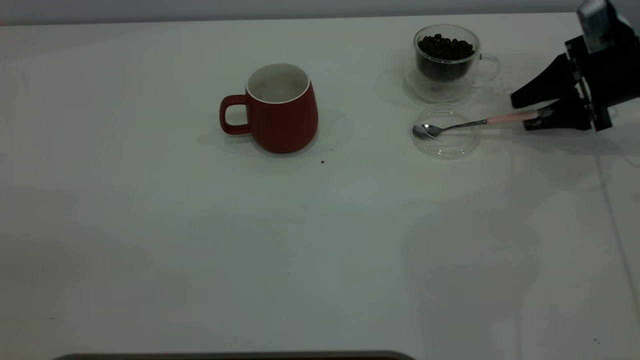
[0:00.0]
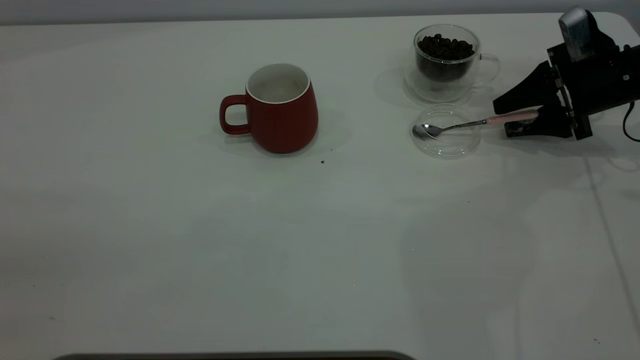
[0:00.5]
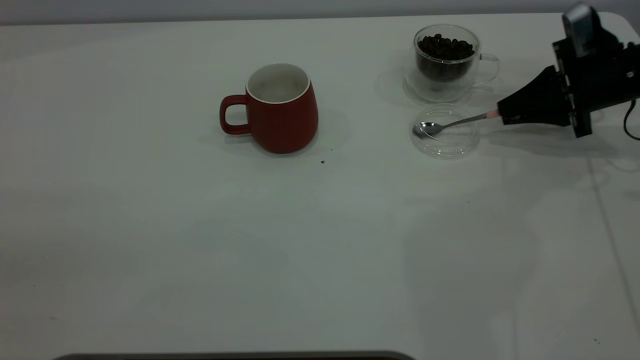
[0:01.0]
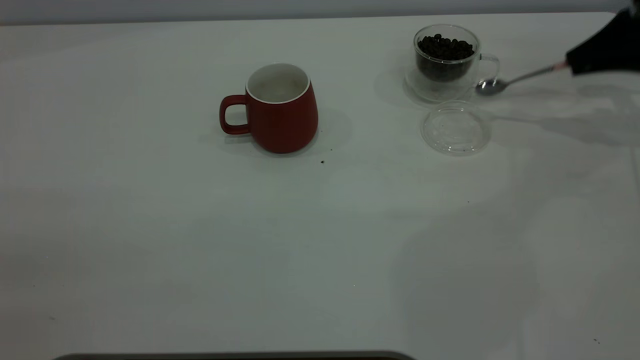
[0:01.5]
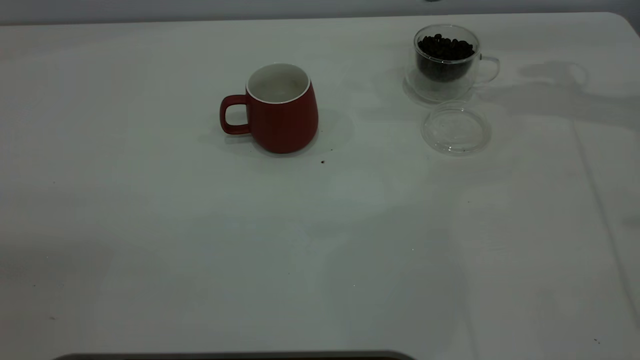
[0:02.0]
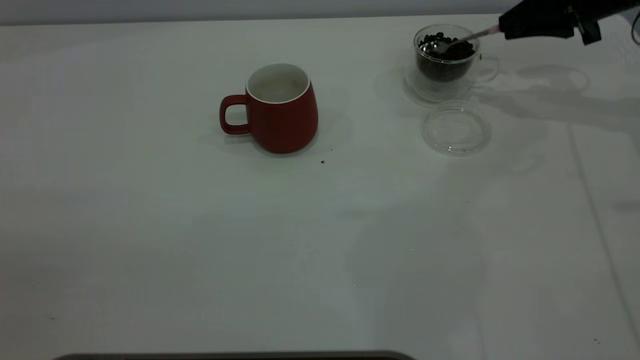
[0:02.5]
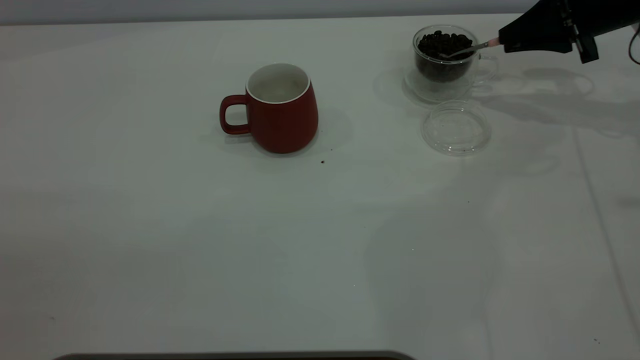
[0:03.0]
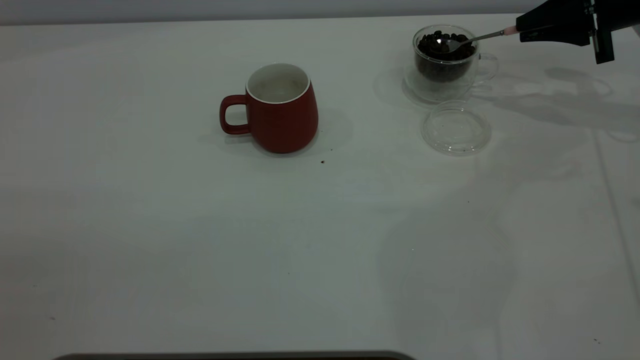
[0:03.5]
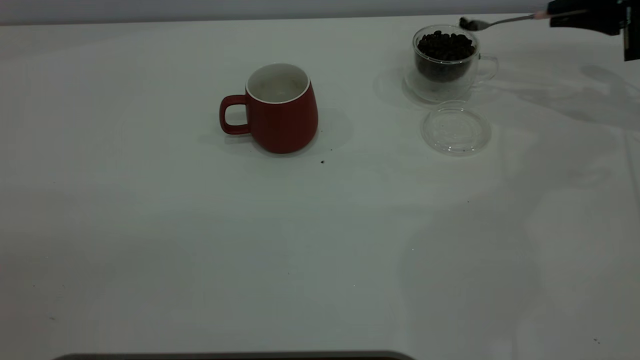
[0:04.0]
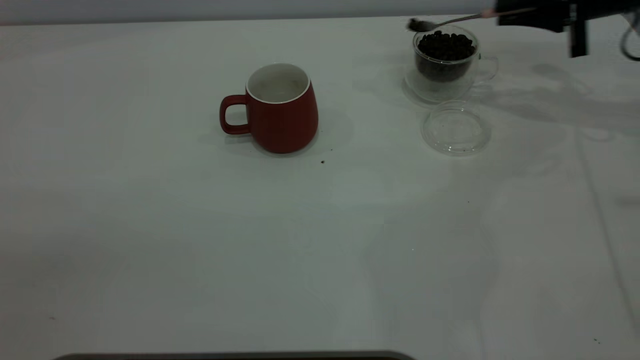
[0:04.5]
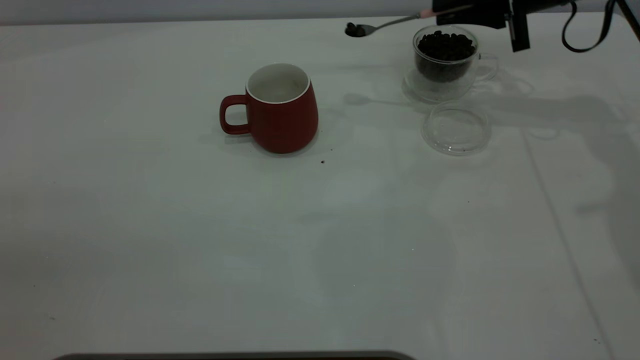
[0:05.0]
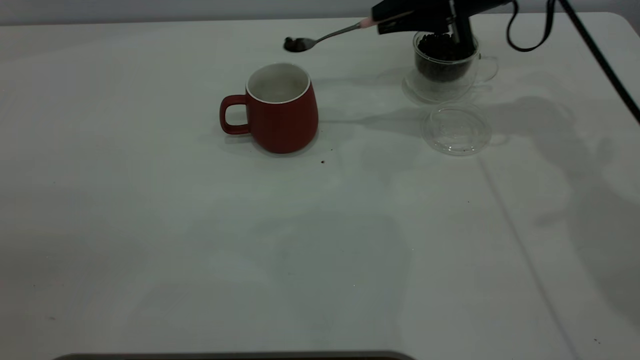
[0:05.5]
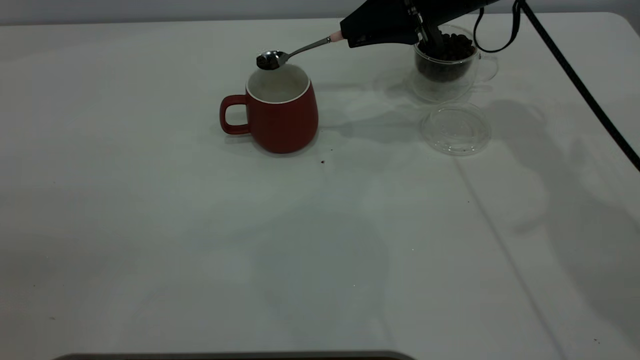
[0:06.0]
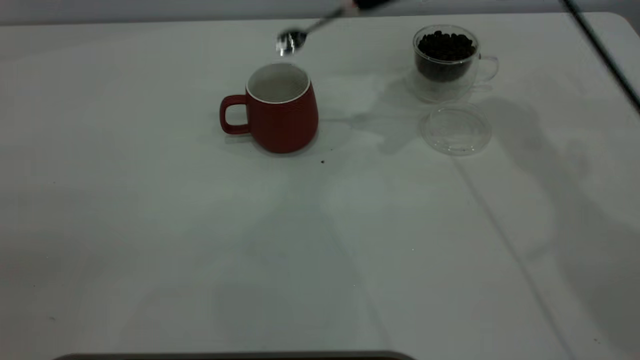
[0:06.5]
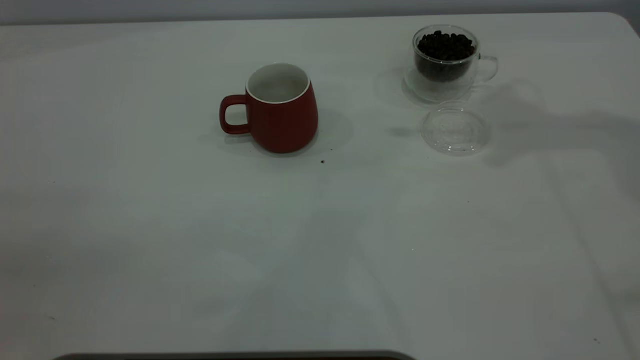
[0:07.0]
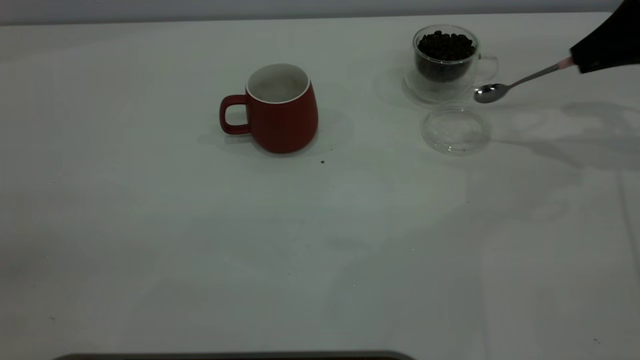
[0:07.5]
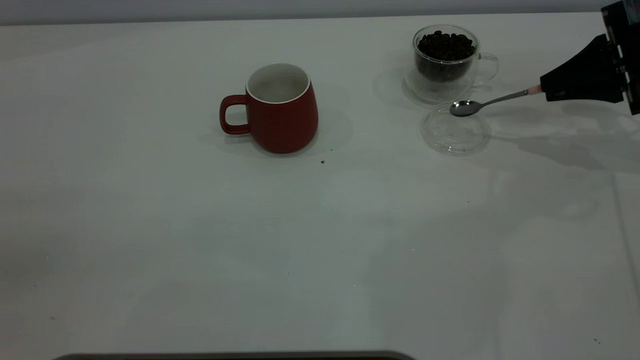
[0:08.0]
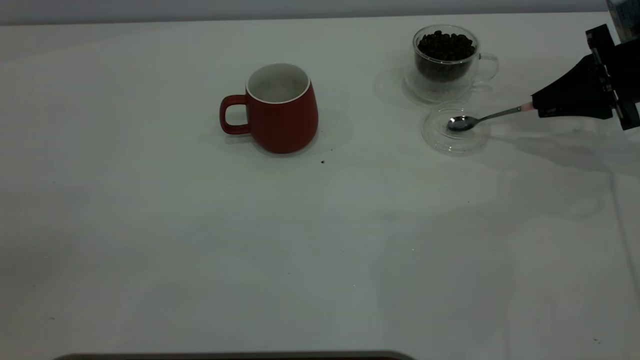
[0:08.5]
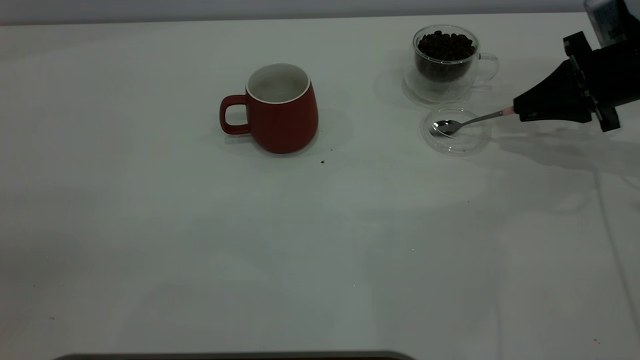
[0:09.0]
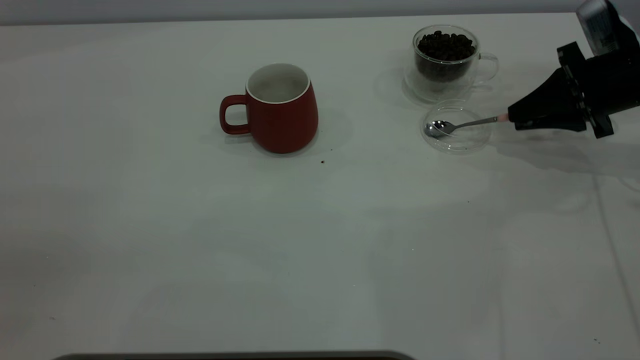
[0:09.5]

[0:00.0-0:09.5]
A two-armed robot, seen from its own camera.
Task of the whole recording: the left gripper place the red cup in the center of the table, the right gripper take the pink spoon from the cup lid and scoop out the coffee beans from the coffee cup and put them into the red cup, the right gripper put the spoon back into the cup lid.
Step, 0:01.5 to 0:06.0: Scoop a spoonful of beans into the cup.
0:00.0 to 0:02.0: The right gripper goes roughly 15 cm upward, and closes up.
0:02.0 to 0:04.0: The right gripper heads to the right and downward, covering some 10 cm.
0:04.0 to 0:05.5: The right gripper moves to the left, some 20 cm.
0:05.5 to 0:07.5: The right gripper travels to the right by some 20 cm.
0:07.5 to 0:09.5: The right gripper shifts approximately 10 cm downward.

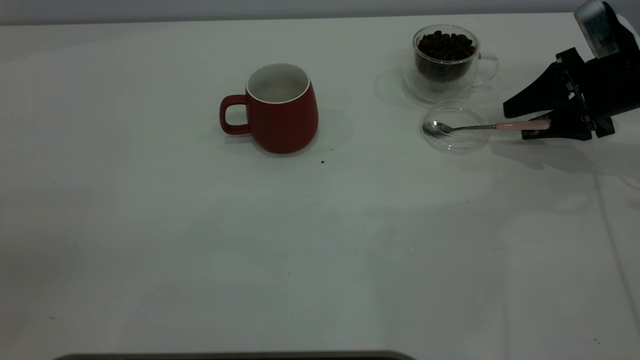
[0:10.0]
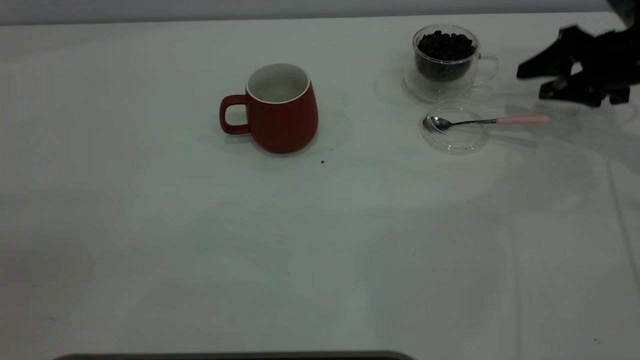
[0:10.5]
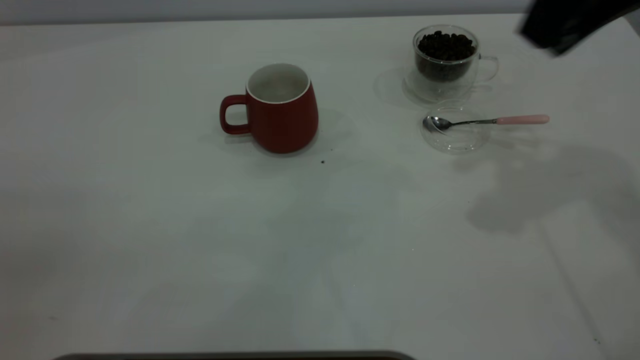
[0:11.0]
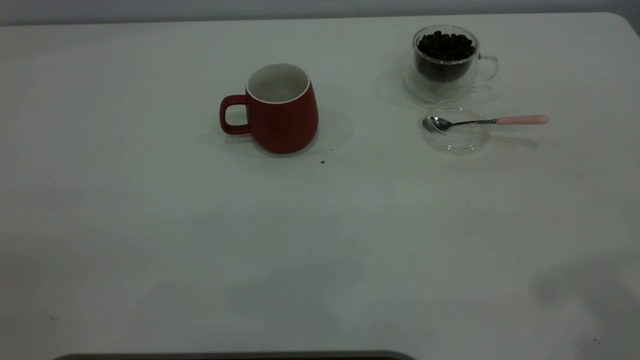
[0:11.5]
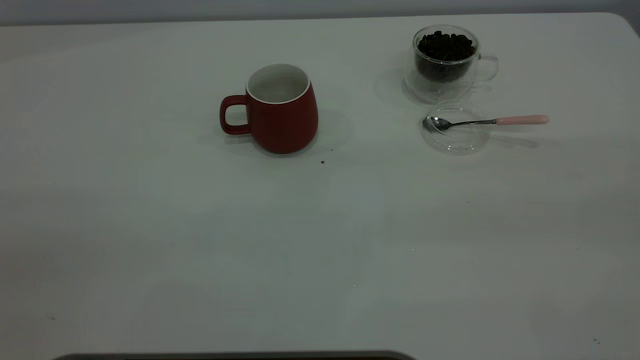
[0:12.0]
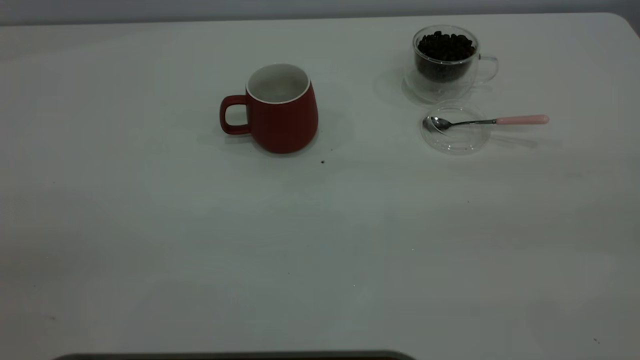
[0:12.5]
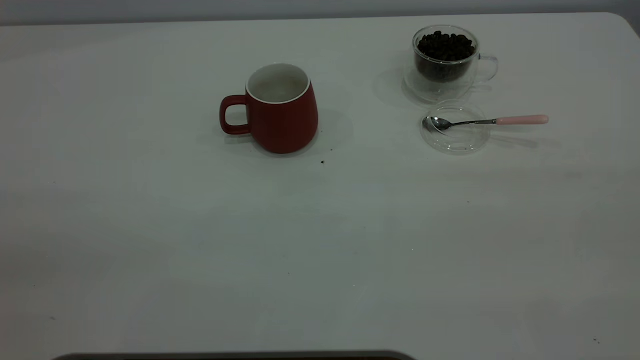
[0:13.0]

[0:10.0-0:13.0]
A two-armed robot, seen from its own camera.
Task of the whole recording: the left gripper place the red cup in the center of the table, the right gripper take the pink spoon from the cup lid and scoop out the coffee beans from the coffee cup and put them into the red cup, the right gripper put the spoon back into the cup lid.
0:10.0 to 0:11.5: The right gripper shifts roughly 40 cm upward and backward.

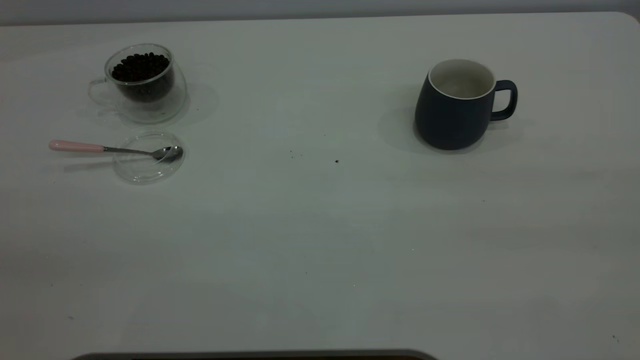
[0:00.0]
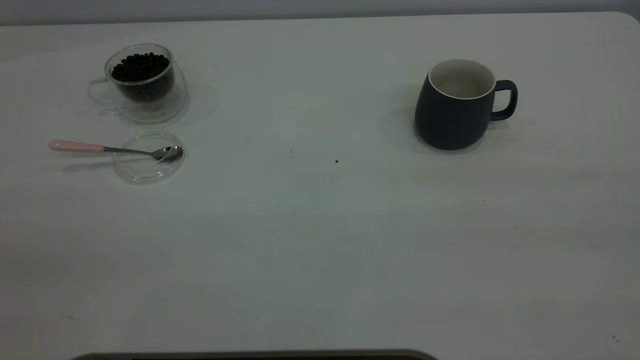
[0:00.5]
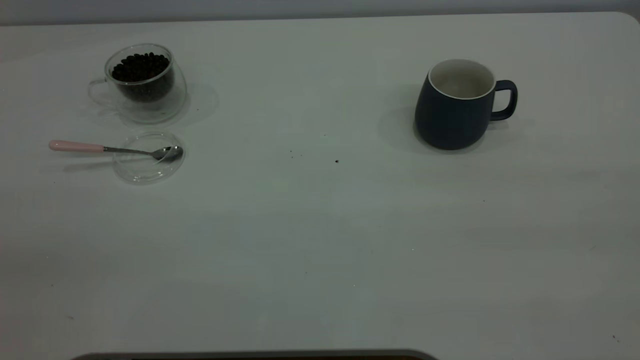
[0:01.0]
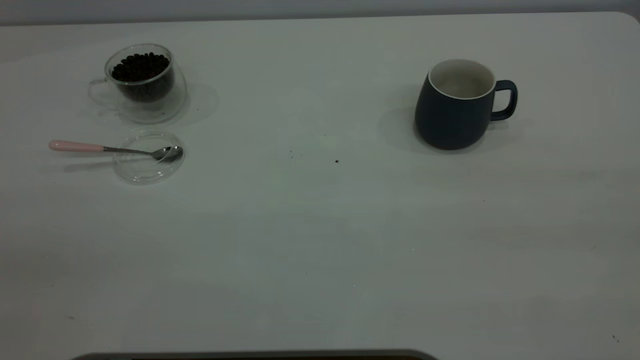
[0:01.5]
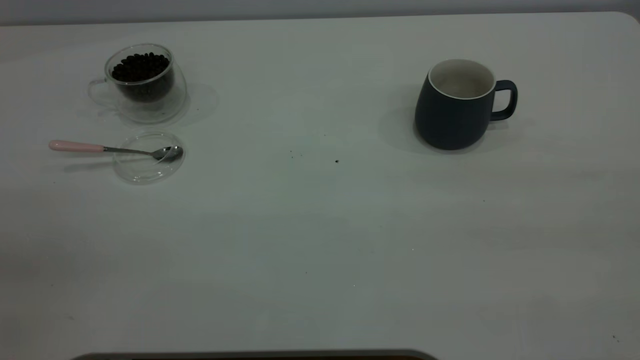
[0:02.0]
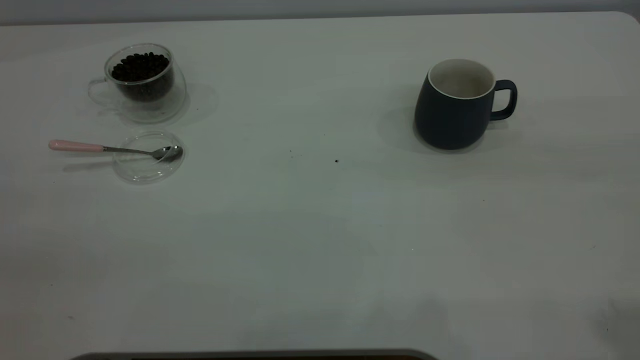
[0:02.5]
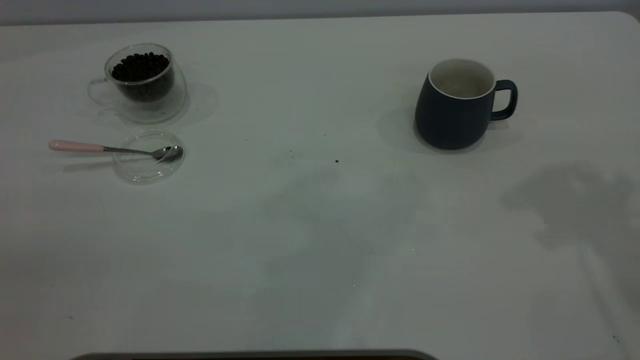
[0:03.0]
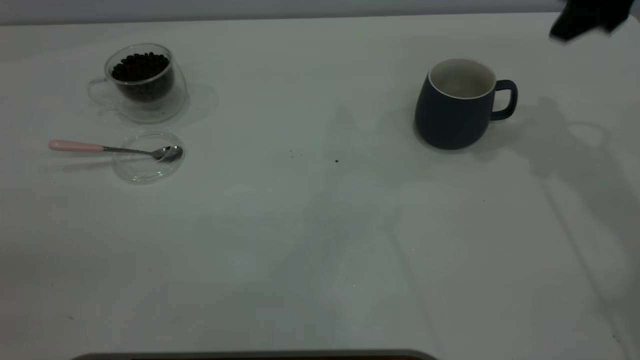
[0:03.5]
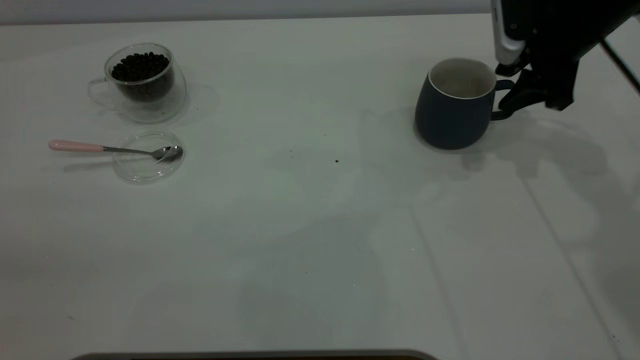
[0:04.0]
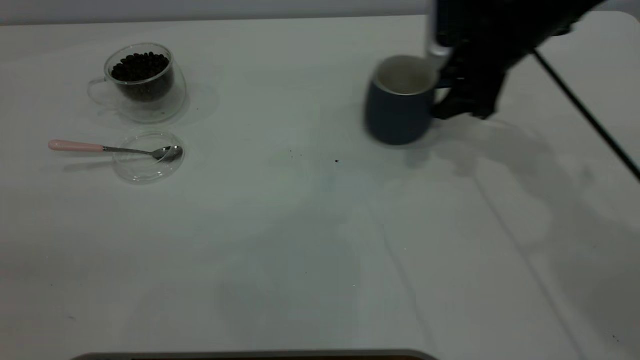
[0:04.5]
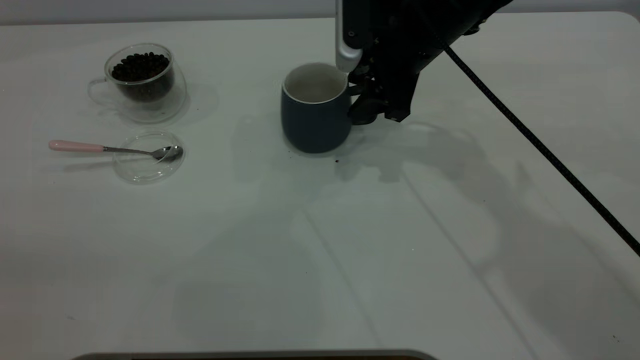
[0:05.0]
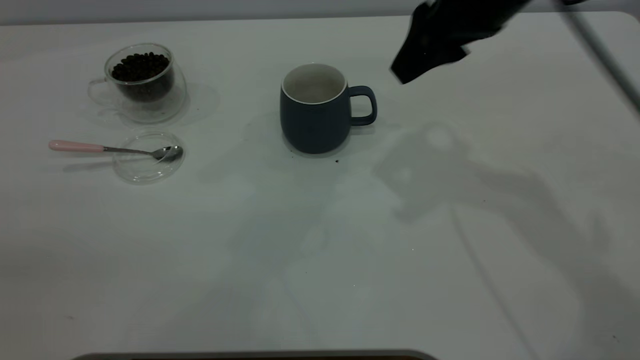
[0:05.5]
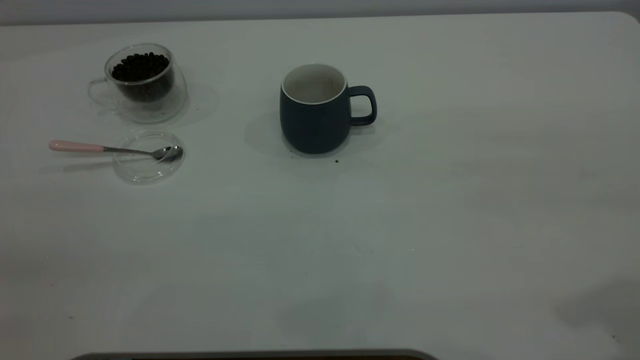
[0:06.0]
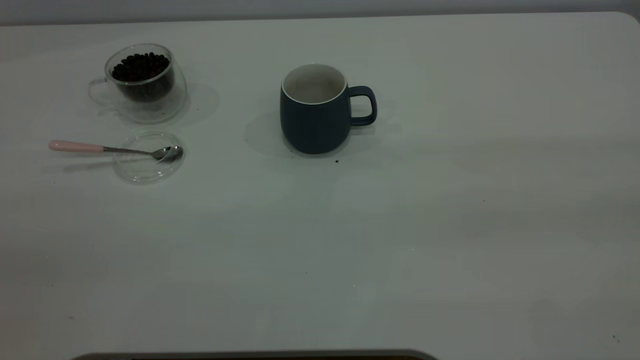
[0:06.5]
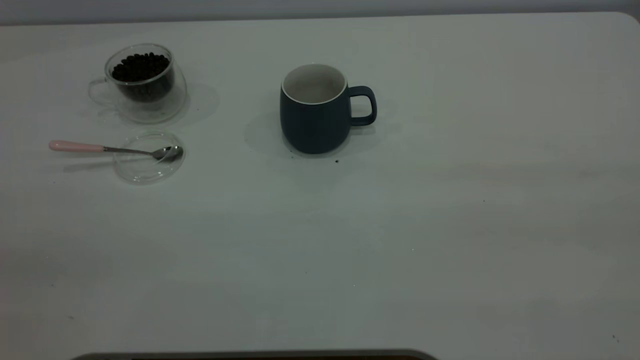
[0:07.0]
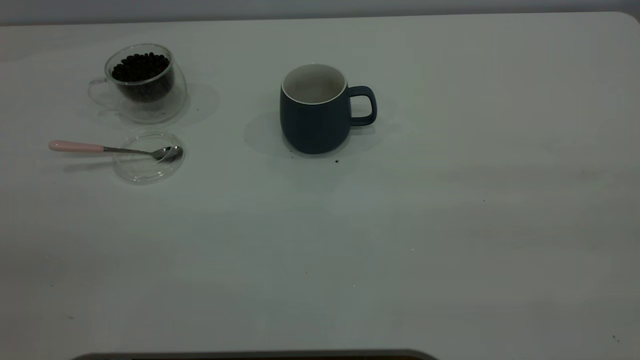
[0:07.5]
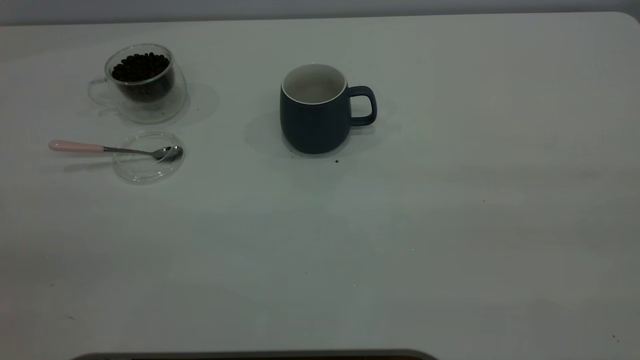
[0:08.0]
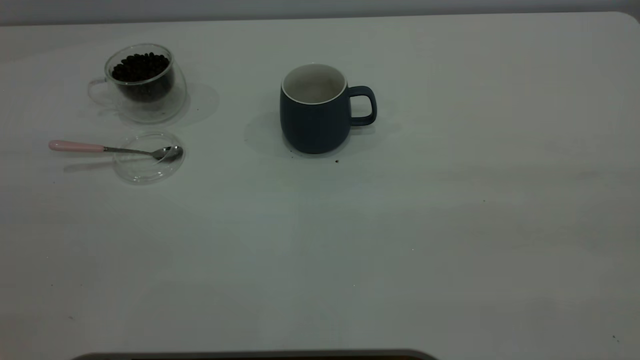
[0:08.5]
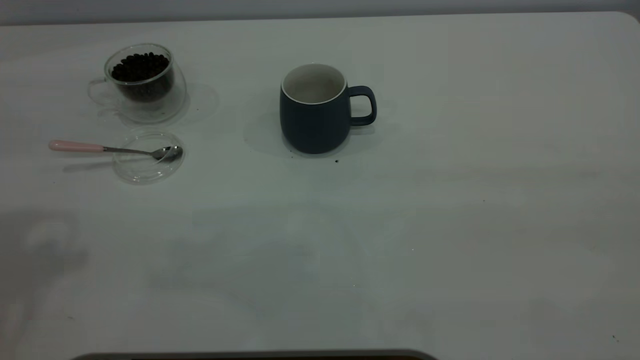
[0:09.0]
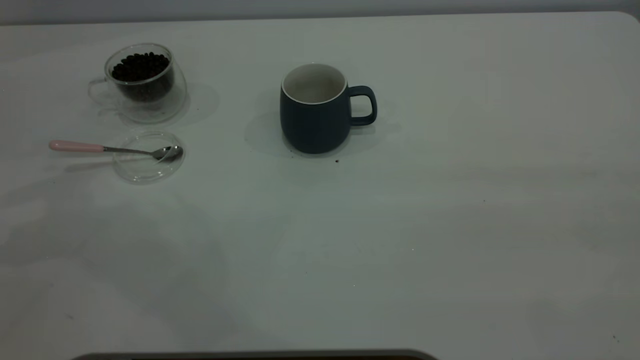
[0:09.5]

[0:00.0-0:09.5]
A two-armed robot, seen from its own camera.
Task of the whole recording: the right gripper place the grey cup in the center of the table, the left gripper take the pink spoon from the cup lid and scoop out the coffee beans from the coffee cup and put them into the grey cup, the left gripper put the spoon back into the cup lid.
Step, 0:00.0 to 0:05.0: Move the cup to the center of view.
0:00.0 to 0:02.0: Both grippers stay put.
0:02.0 to 0:04.0: The right gripper travels forward and downward by about 50 cm, and opens.
0:04.0 to 0:05.5: The right gripper travels upward, to the left and backward by approximately 20 cm.
0:05.5 to 0:07.5: The right gripper travels backward and to the right by roughly 35 cm.
